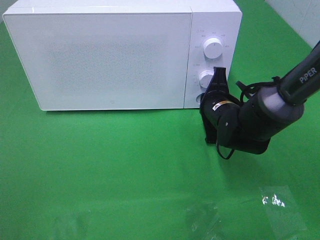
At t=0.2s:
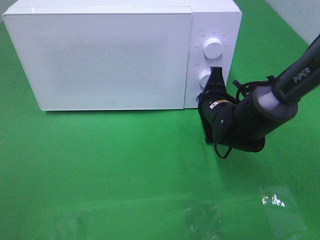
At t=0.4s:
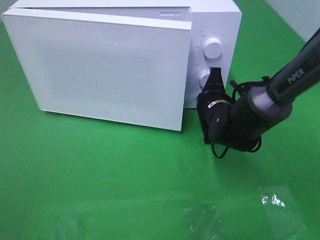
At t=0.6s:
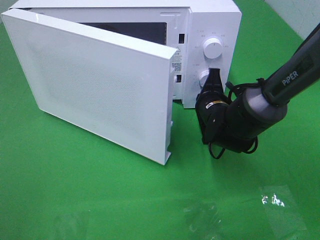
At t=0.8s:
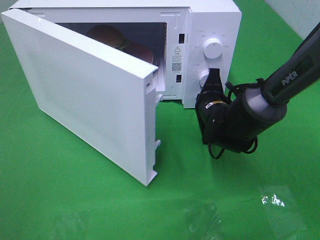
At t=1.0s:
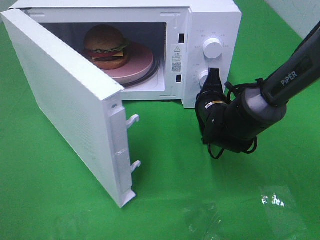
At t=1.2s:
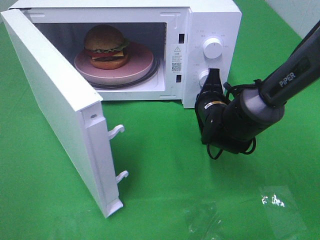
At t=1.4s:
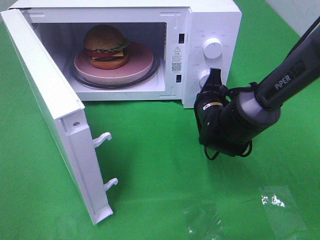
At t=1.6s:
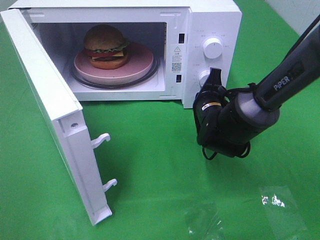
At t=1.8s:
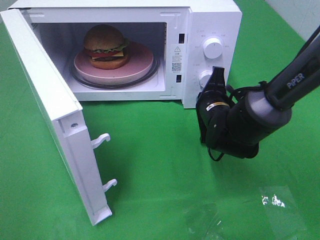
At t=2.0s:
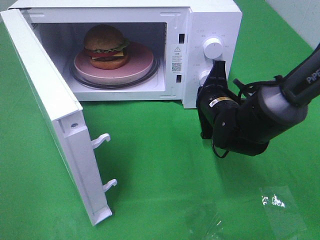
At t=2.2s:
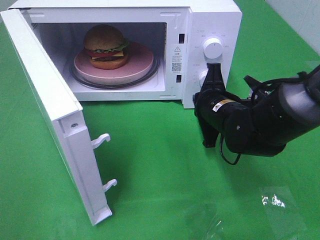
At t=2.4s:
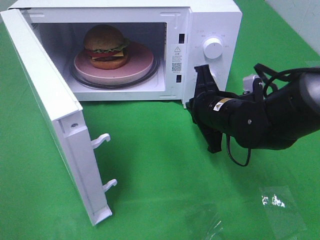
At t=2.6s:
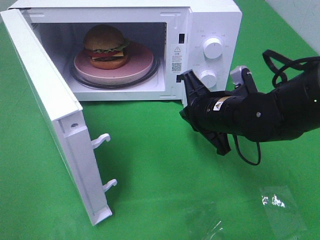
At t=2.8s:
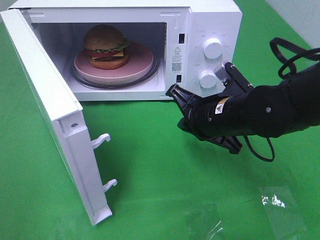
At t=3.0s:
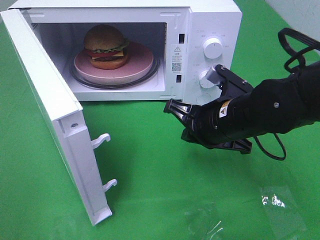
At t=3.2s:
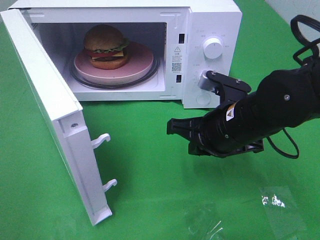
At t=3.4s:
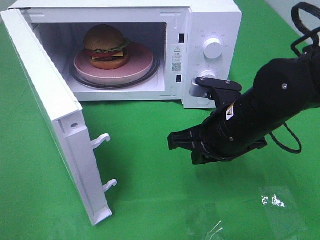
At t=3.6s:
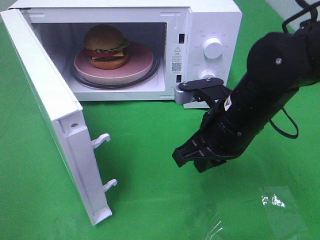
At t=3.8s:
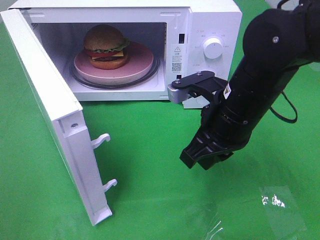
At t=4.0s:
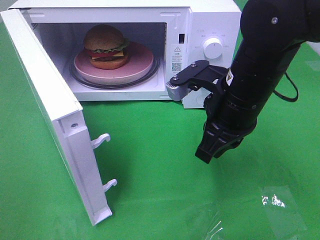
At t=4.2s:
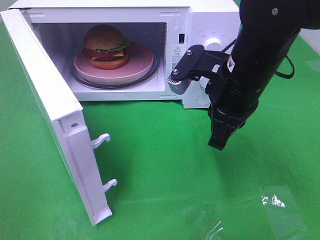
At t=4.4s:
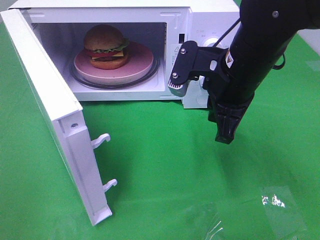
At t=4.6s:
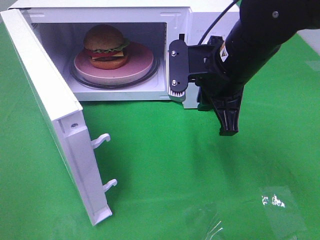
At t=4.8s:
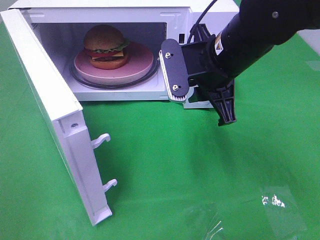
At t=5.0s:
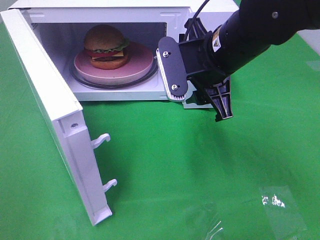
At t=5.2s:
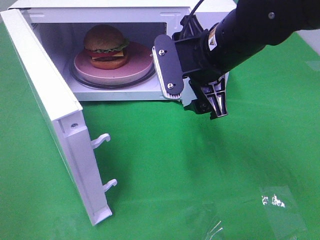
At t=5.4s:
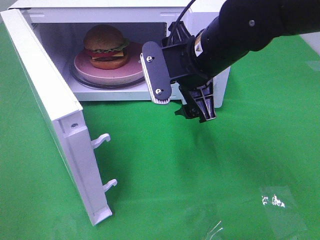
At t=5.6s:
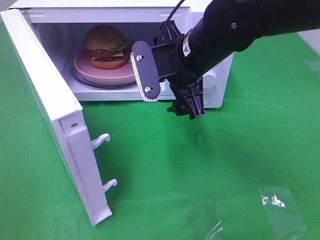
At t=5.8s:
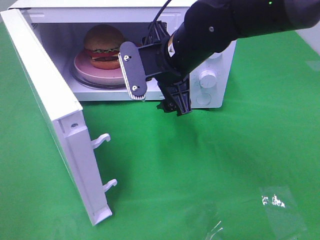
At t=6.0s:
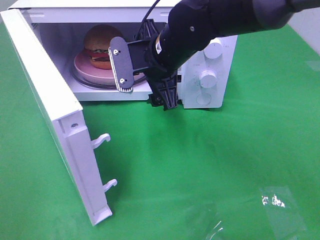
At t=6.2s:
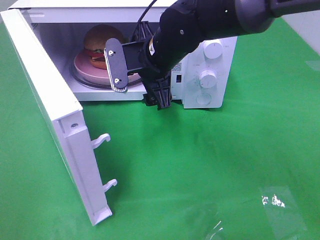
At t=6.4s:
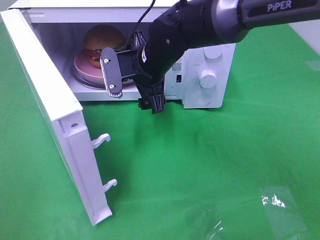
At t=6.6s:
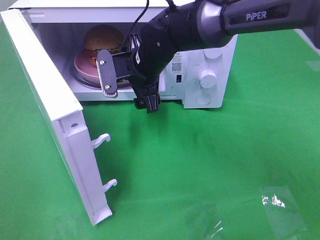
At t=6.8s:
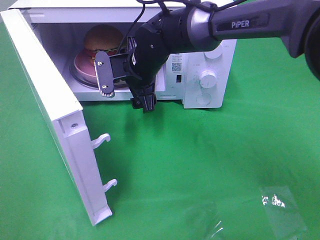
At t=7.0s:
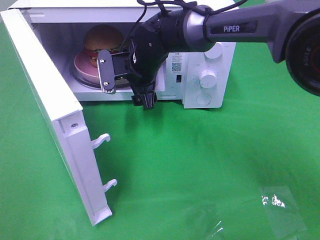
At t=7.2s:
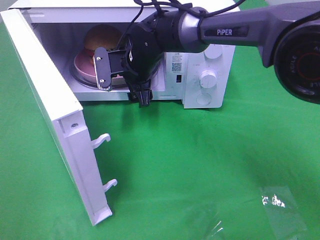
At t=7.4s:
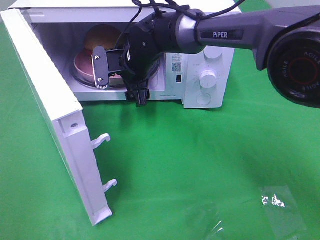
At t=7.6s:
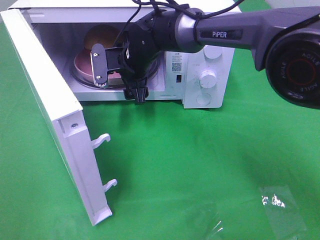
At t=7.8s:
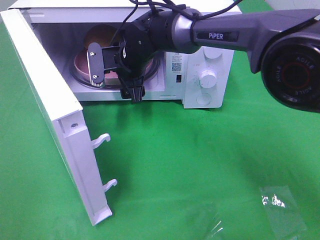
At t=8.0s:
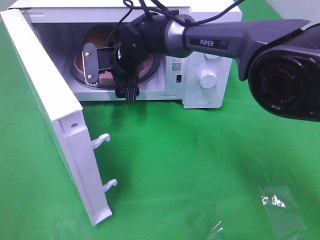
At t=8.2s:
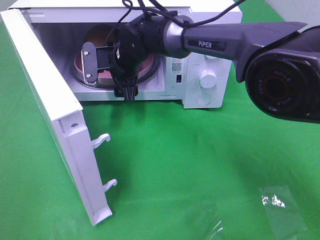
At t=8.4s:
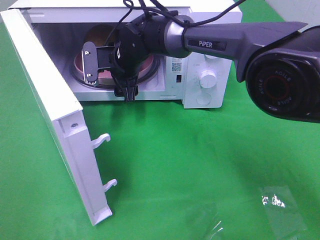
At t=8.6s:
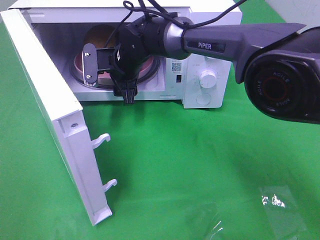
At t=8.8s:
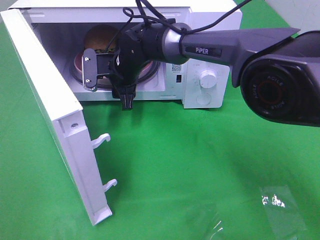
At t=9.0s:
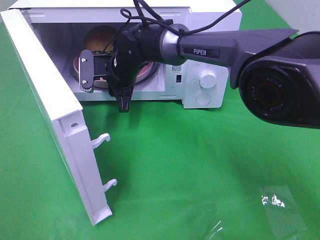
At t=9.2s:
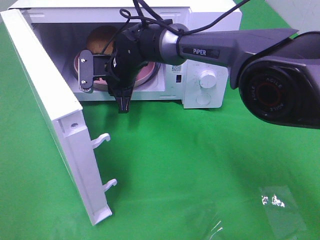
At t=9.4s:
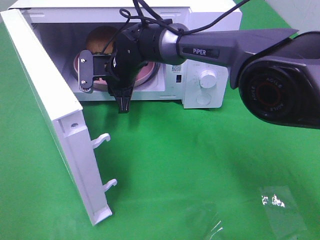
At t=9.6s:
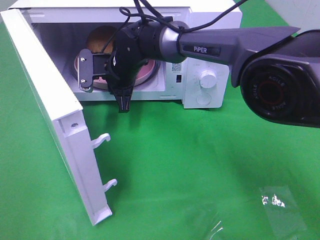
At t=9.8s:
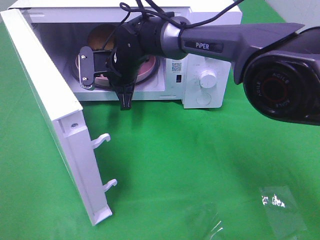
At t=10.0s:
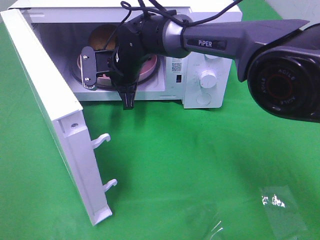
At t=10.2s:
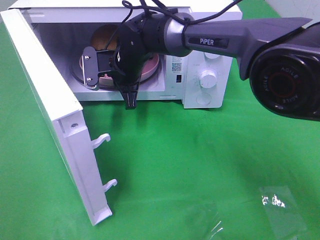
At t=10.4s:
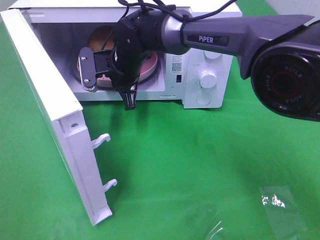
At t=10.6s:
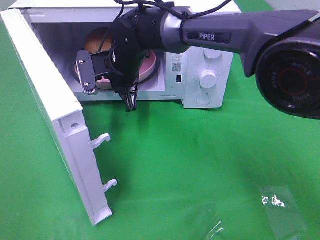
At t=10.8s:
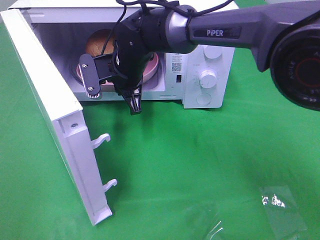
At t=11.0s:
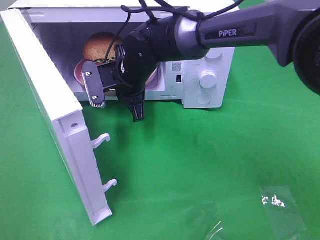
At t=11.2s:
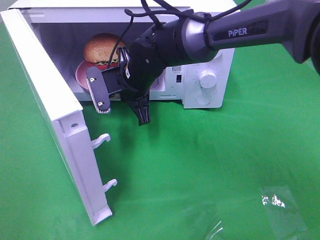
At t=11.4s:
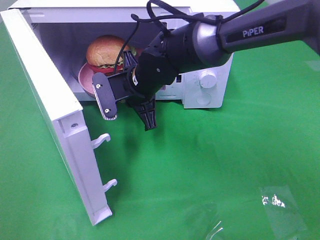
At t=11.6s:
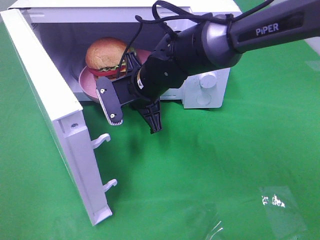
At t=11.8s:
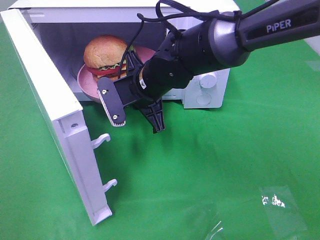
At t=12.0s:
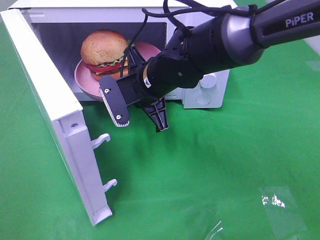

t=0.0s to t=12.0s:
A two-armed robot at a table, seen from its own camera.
Task of the whole recording: Heat the burger.
Step, t=0.0s to t=2.0s: Right hand: press the switch.
Step, t=2.2s to t=10.0s: Right hand: grab the plate with the hamburger.
t=1.6s to t=3.0s: The right gripper heads backward and upward, covering approximately 10 cm.
t=3.0s to t=4.4s: The right gripper is displaced upward by roughly 10 cm.
t=4.4s to t=6.0s: The right gripper heads to the left and forward, covering approximately 10 cm, and opens up.
t=6.0s to t=7.6s: The right gripper is displaced forward, downward and to the left by about 10 cm.
t=7.6s to t=9.0s: The right gripper closes up.
t=9.0s to t=10.4s: The grippers move only a little.
t=10.4s to t=12.0s: The right gripper travels backward and to the right by some 10 cm.

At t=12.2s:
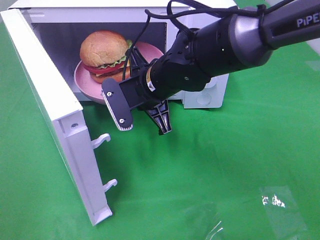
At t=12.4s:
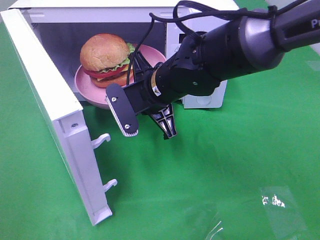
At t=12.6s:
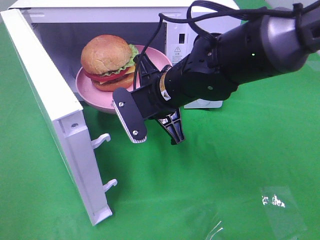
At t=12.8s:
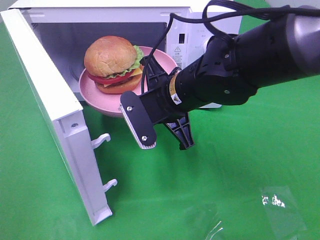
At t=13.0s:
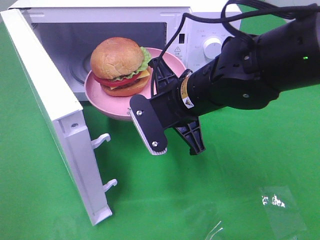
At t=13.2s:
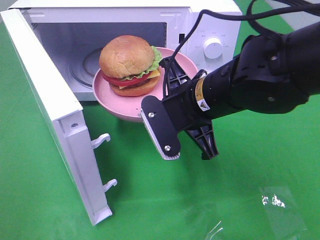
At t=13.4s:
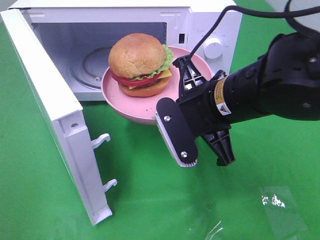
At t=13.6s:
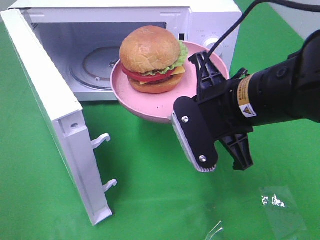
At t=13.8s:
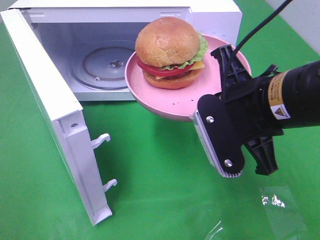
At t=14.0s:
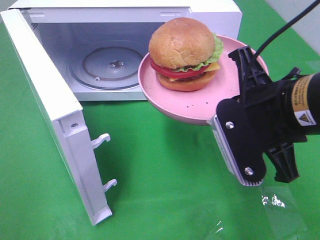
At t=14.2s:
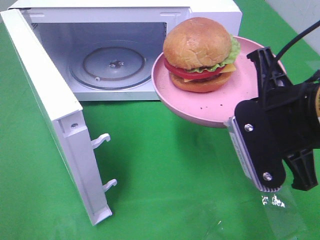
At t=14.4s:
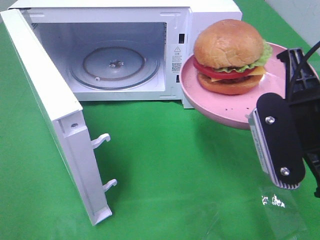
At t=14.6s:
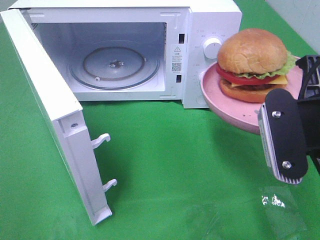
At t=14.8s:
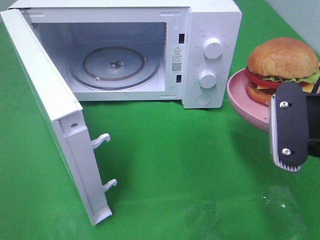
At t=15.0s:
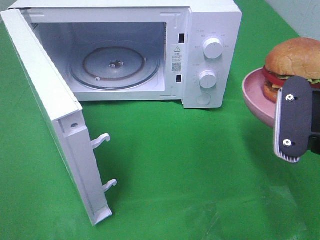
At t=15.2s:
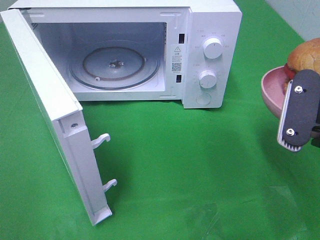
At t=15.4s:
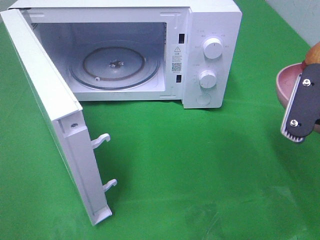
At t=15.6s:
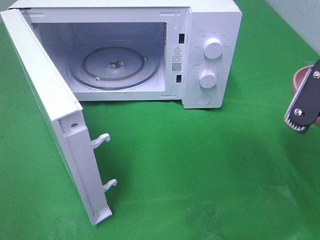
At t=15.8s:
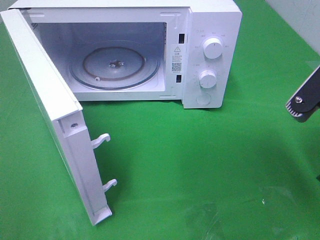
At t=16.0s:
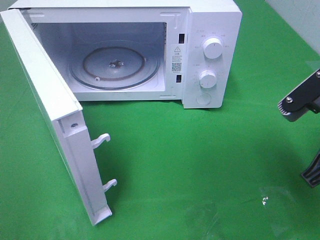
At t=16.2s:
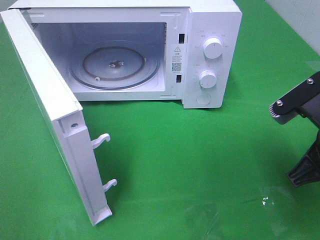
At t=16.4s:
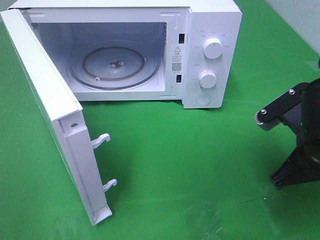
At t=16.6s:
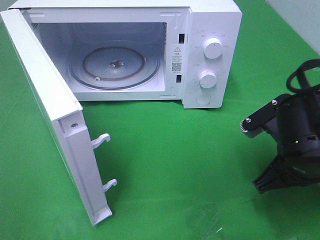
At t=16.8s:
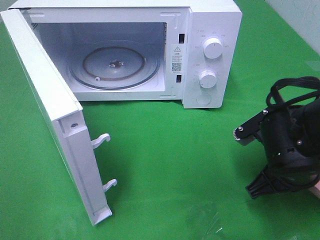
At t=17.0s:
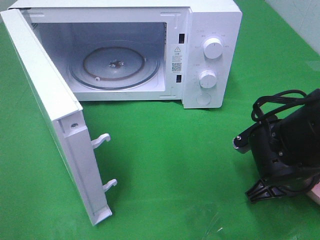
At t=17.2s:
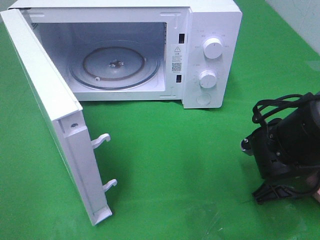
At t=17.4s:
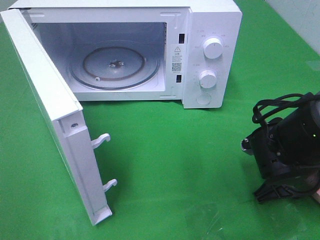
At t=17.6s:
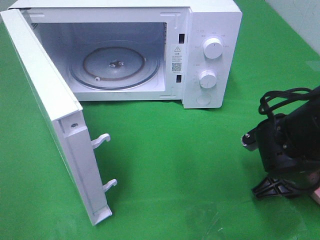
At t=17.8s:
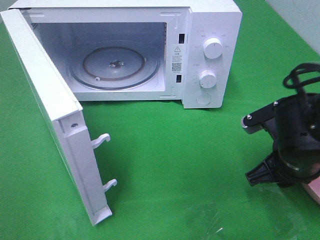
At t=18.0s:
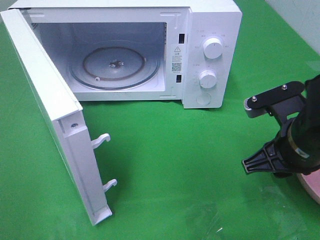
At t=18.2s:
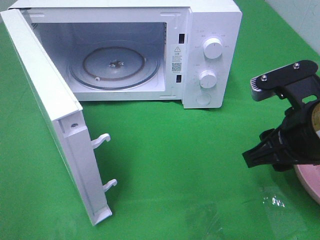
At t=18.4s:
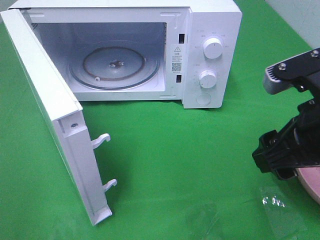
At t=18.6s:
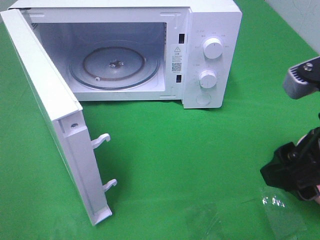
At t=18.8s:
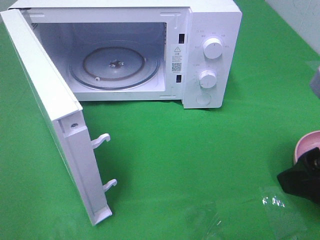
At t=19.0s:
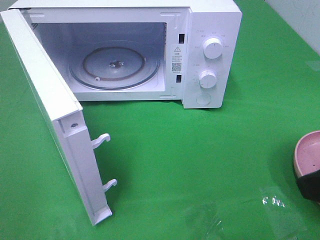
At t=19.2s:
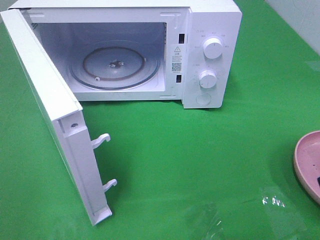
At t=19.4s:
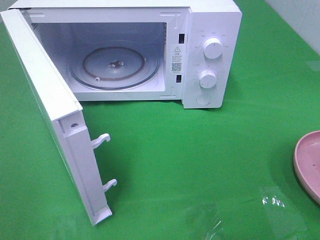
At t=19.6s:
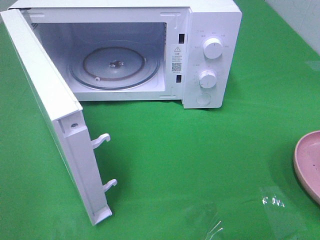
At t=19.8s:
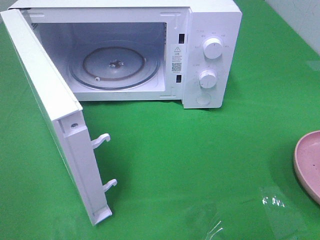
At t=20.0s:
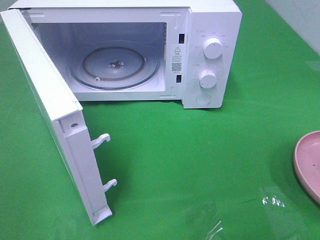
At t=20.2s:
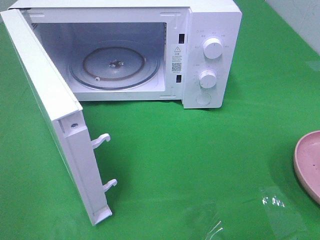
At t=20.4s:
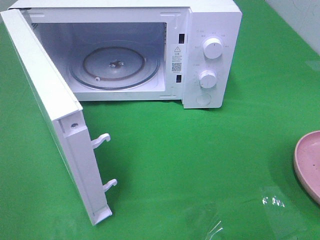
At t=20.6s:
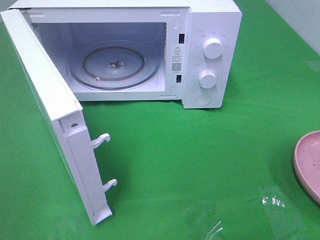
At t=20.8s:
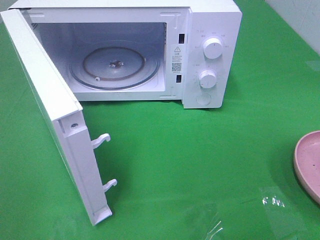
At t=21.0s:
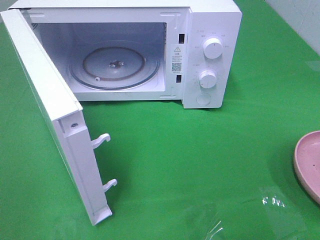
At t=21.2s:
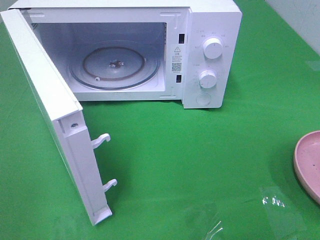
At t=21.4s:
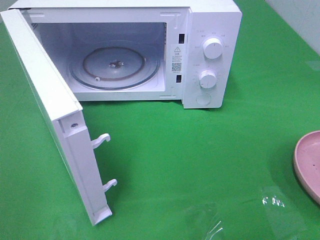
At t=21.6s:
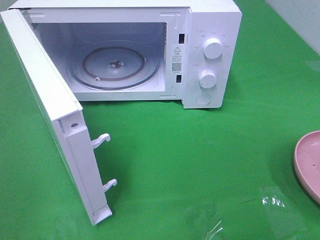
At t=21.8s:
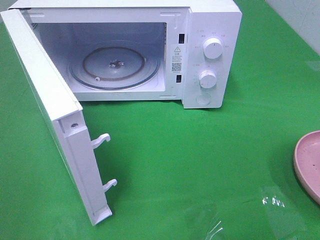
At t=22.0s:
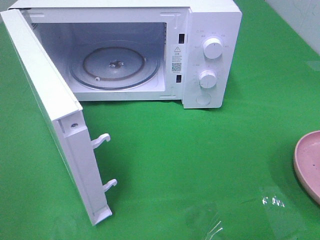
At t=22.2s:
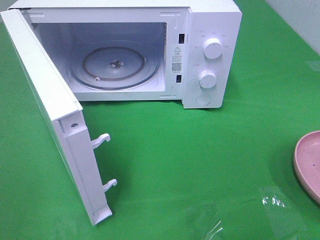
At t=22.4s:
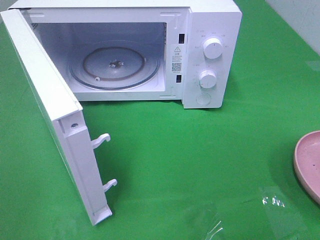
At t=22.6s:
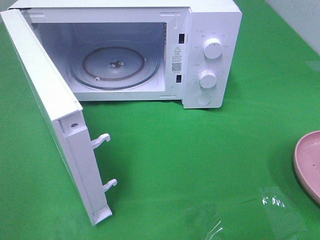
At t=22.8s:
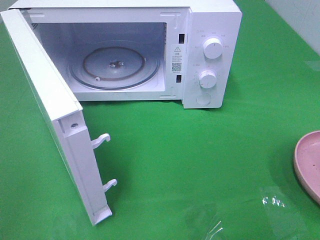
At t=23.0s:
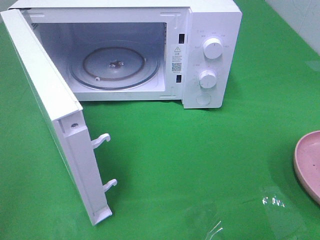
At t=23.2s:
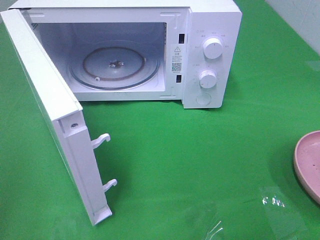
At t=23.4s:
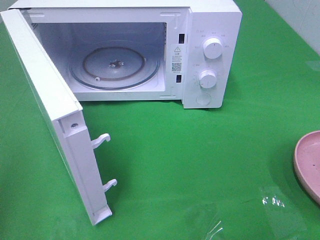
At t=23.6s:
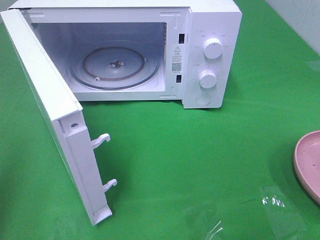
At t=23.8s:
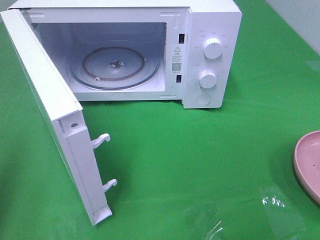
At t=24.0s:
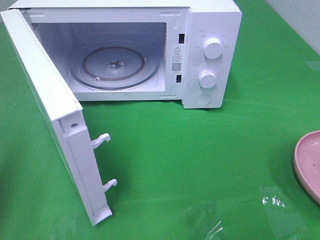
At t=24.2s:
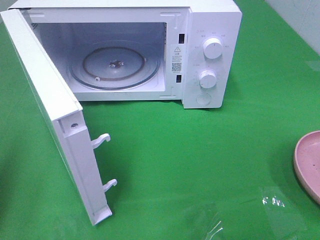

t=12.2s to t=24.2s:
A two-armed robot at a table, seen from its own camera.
Task of the whole recording: Heat the burger.
Step, t=12.2s to t=17.6s: Right hand: place the plate on the table.
t=12.2s to t=13.8s: The right gripper shifts some 20 cm backward, to the right and upward.
t=13.8s to t=15.2s: The right gripper goes roughly 10 cm to the right.
t=15.2s to t=16.6s: The right gripper is displaced downward by roughly 10 cm.
t=16.6s to t=18.2s: The right gripper heads upward, covering about 5 cm, and opens its fingers.
t=18.2s to t=19.8s: The right gripper moves backward, to the right and upward, about 20 cm.
t=21.2s to t=22.6s: Both grippers stay about where they are.
t=22.6s to t=24.2s: The left gripper shifts roughly 15 cm forward, and closes its fingers.
